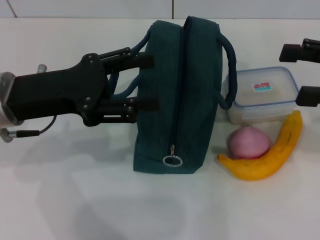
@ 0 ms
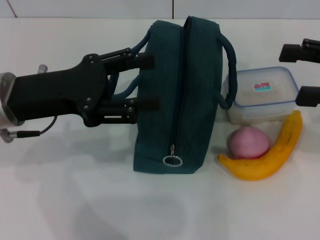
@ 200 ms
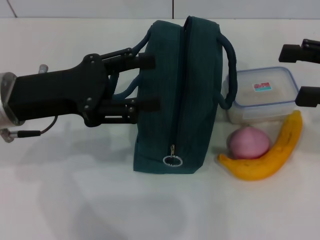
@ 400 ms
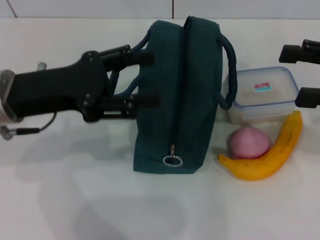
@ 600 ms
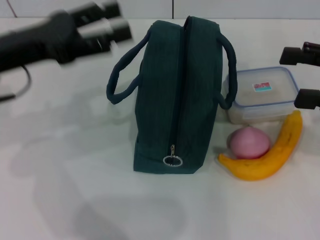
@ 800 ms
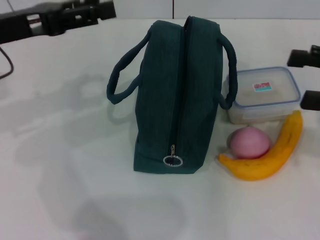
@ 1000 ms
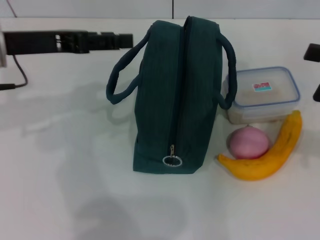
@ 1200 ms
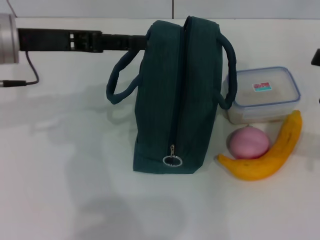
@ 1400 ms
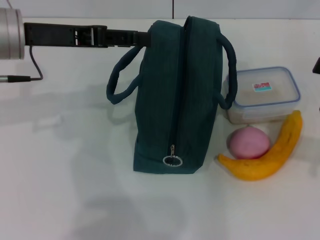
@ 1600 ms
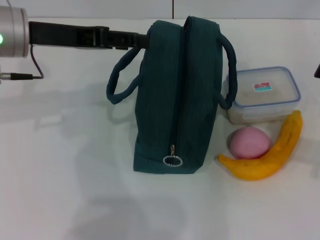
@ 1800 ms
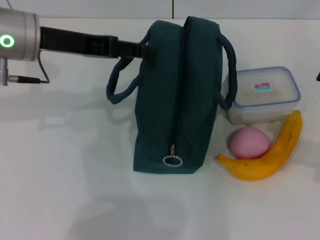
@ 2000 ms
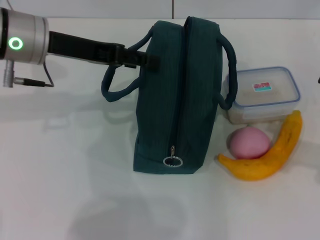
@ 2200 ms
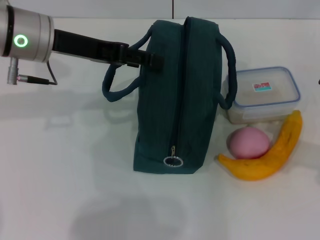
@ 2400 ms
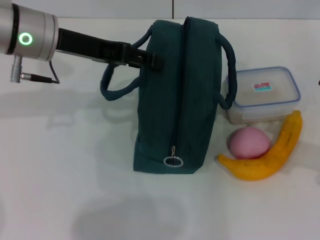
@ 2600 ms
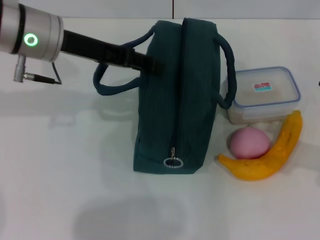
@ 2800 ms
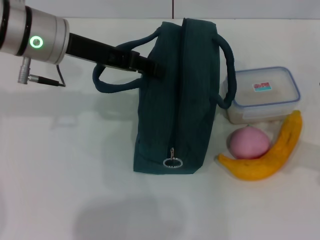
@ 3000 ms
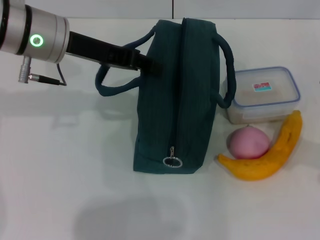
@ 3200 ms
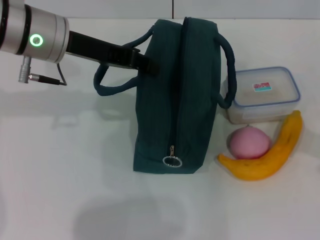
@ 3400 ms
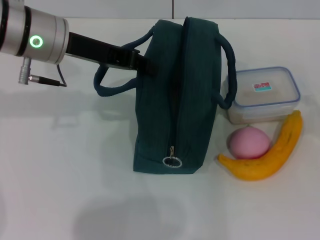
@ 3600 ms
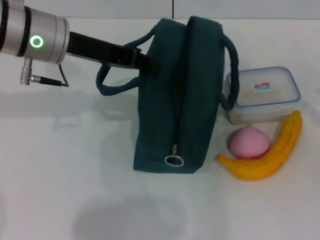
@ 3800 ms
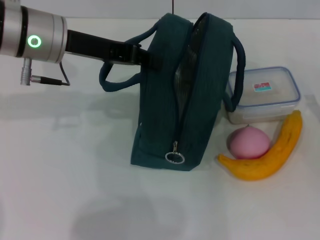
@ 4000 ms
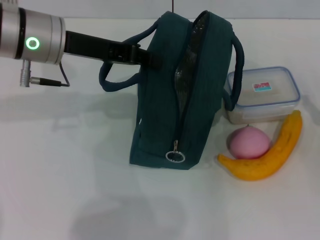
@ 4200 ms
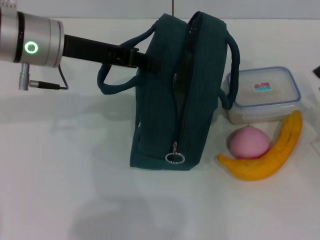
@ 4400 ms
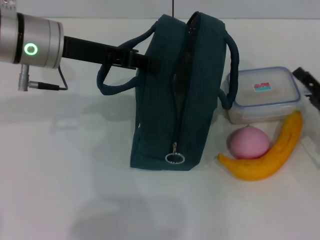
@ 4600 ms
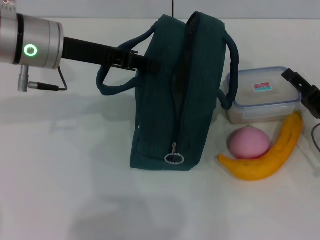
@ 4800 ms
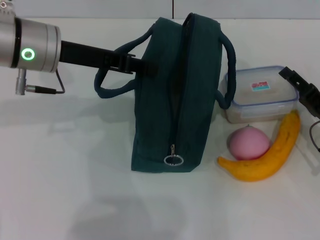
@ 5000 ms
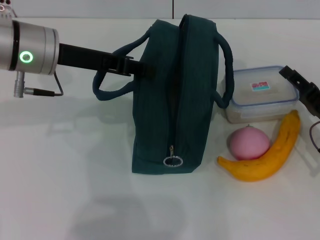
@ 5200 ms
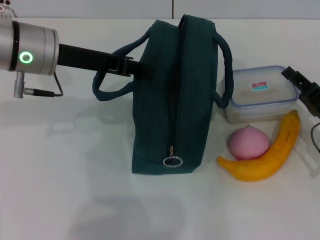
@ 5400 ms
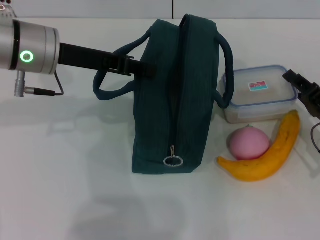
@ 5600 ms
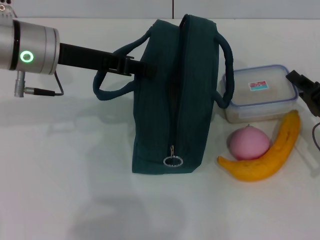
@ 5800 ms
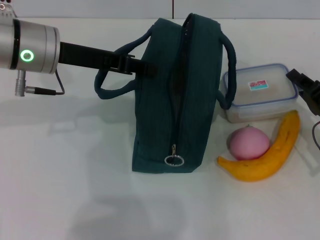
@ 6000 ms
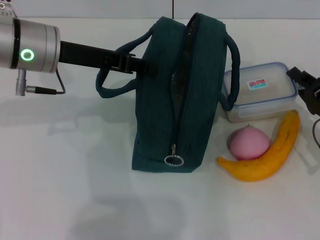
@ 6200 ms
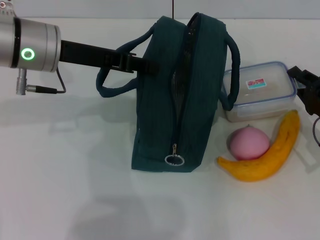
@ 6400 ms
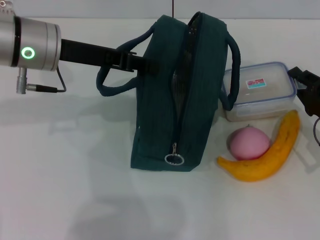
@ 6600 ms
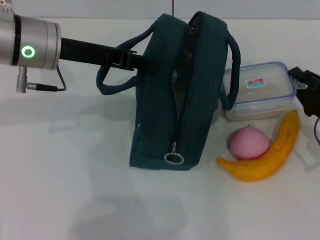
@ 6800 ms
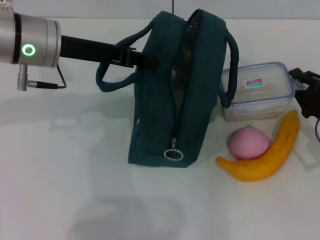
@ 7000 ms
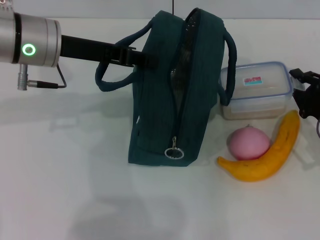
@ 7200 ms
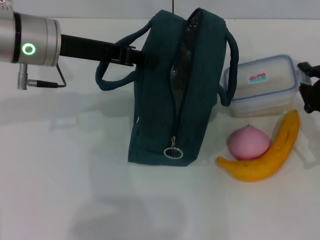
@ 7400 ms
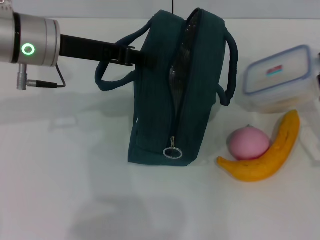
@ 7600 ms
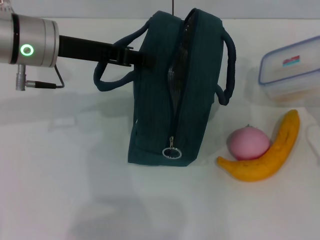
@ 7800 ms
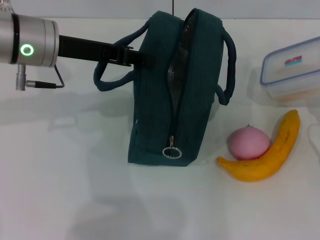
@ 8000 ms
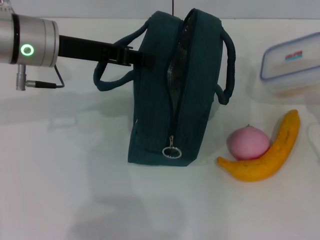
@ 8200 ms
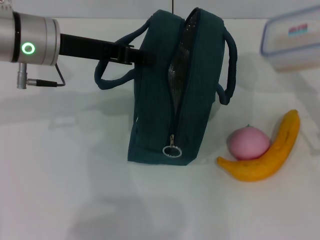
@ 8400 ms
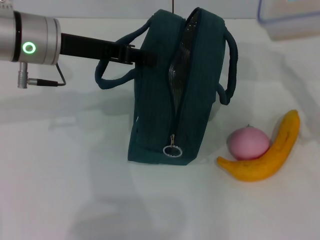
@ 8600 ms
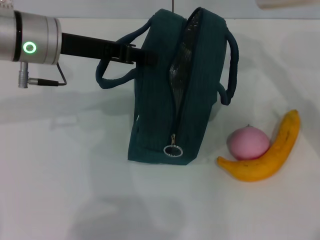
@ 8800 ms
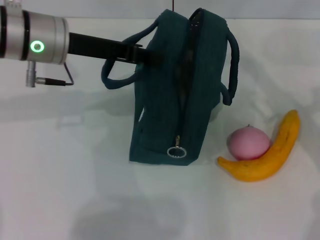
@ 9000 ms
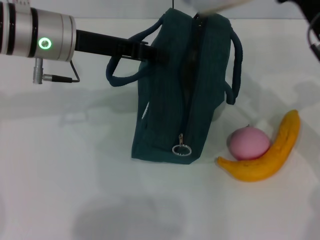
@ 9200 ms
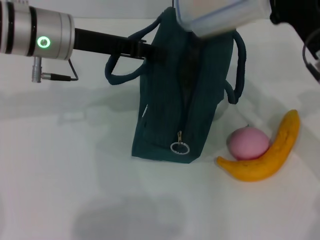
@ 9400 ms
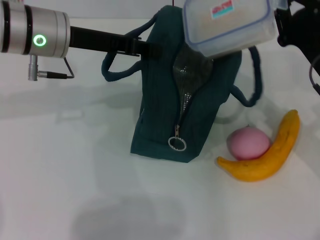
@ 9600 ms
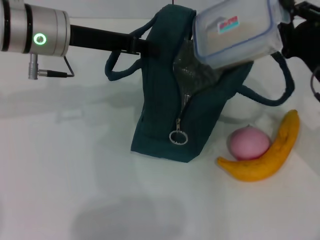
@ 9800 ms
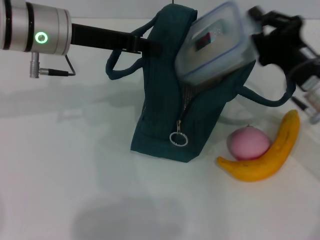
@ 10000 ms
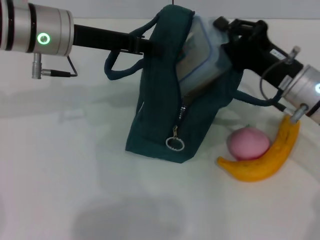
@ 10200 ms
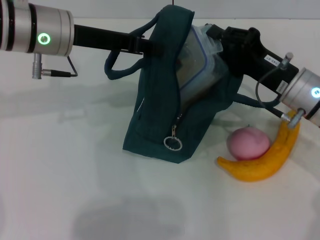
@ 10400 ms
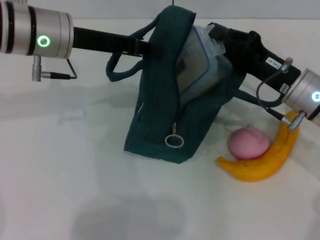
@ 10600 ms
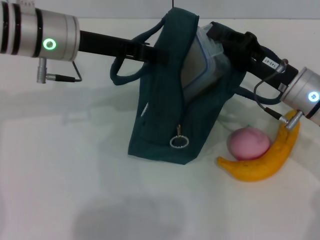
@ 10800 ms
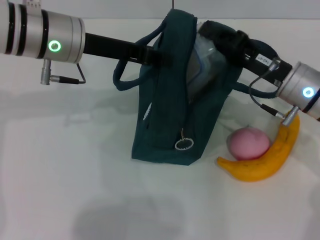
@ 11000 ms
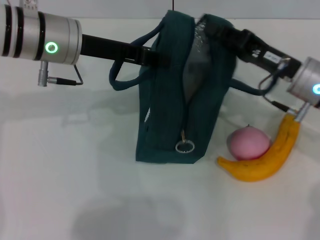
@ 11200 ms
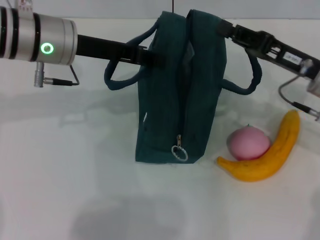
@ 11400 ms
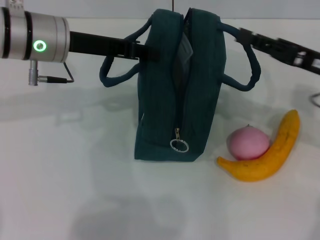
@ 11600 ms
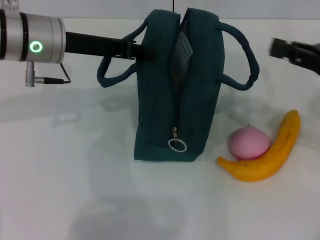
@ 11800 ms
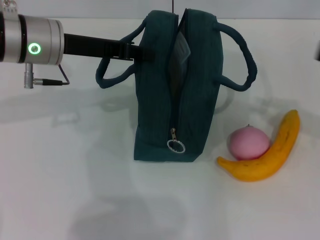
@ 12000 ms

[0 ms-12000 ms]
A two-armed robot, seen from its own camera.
Step, 0 ms to 4000 ms: Hold the lunch bag with your left hand.
Step, 4200 ms to 7200 ms: Pick up the lunch box with your right hand.
Step, 7600 ms to 11200 ms: Place the lunch box into the lunch bag with your right hand.
0 ms to 1600 ms: The left gripper shifts roughly 5 cm forward. The right gripper ends up roughly 5 cm from where it was.
1600 ms to 3000 ms: There are only small adjustments of the grippers.
3000 ms to 4400 ms: The right gripper goes roughly 10 cm downward; the left gripper closes its fingers.
4400 ms to 6000 ms: The right gripper closes its fingers.
7600 ms to 9000 ms: The right gripper goes approximately 15 cm upward, forward and to the left.
9000 ms to 10400 ms: The right gripper travels downward by roughly 5 cm.
10400 ms to 12000 ms: The right gripper goes roughly 20 cm to the right and upward.

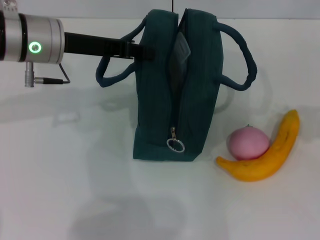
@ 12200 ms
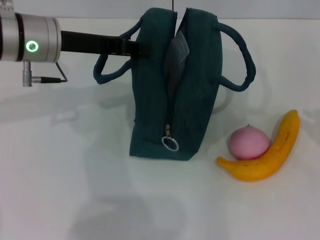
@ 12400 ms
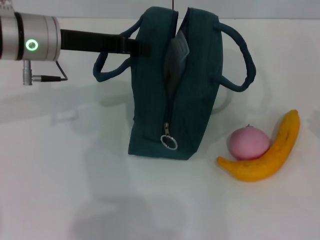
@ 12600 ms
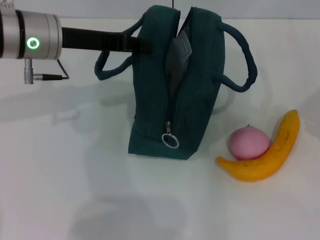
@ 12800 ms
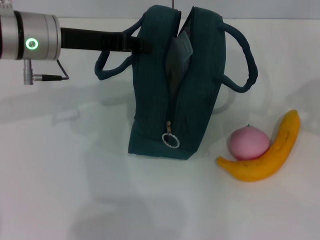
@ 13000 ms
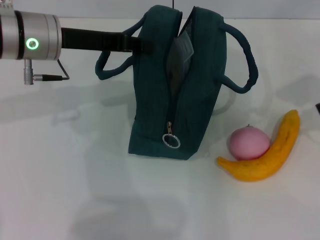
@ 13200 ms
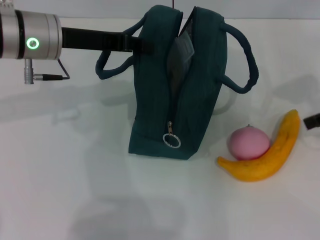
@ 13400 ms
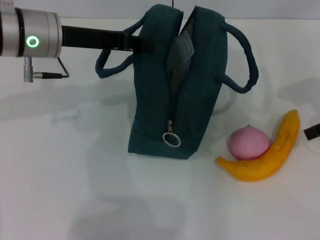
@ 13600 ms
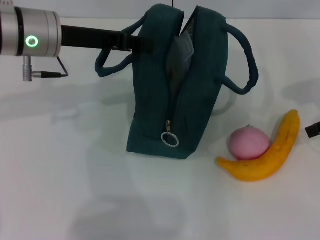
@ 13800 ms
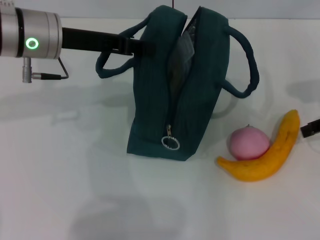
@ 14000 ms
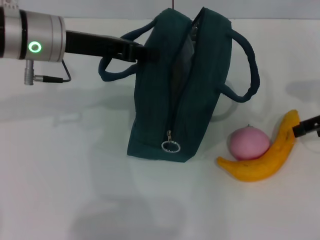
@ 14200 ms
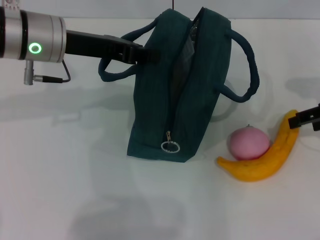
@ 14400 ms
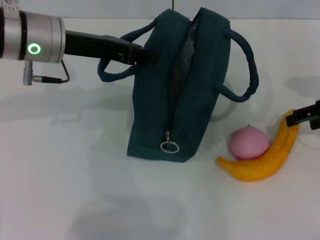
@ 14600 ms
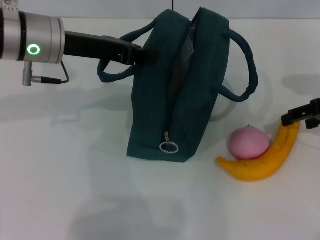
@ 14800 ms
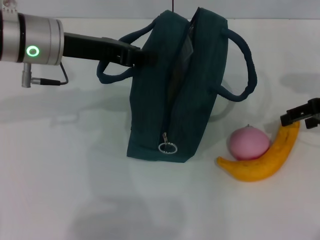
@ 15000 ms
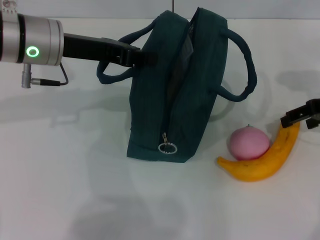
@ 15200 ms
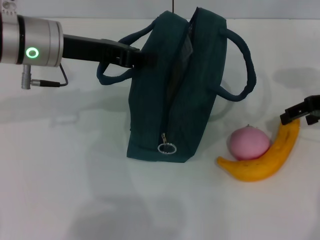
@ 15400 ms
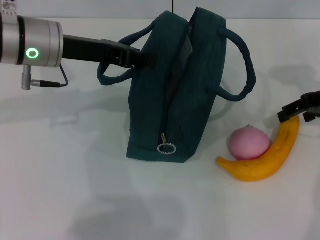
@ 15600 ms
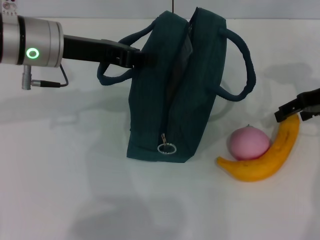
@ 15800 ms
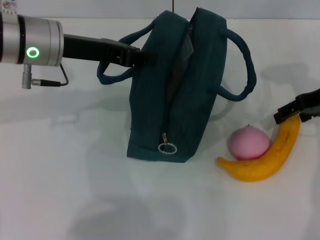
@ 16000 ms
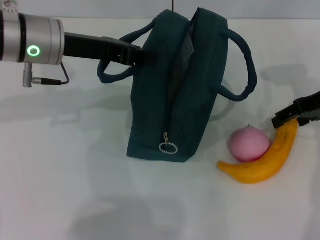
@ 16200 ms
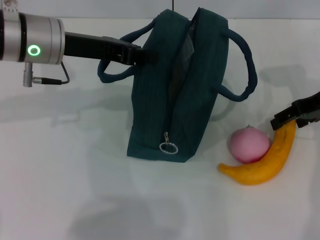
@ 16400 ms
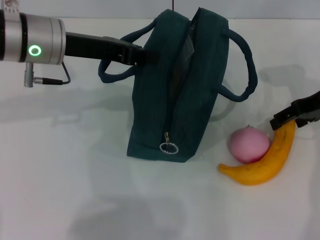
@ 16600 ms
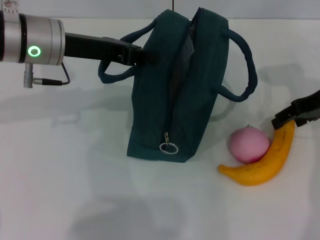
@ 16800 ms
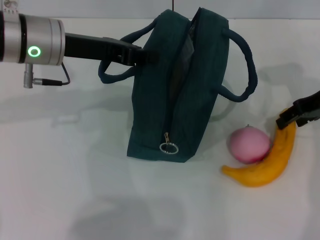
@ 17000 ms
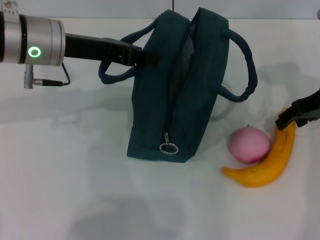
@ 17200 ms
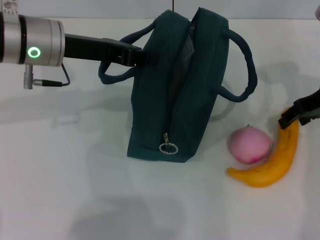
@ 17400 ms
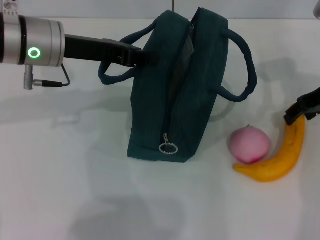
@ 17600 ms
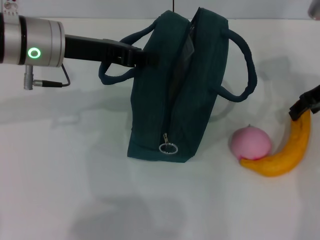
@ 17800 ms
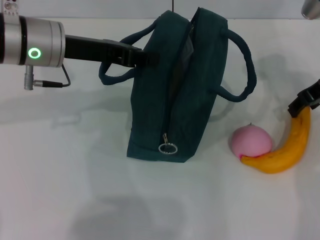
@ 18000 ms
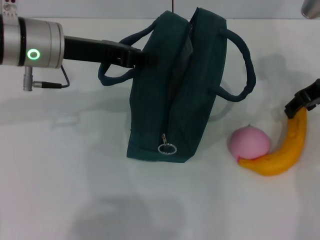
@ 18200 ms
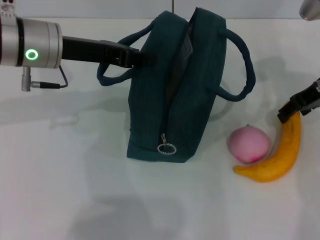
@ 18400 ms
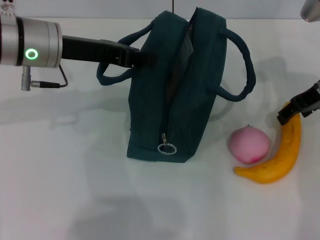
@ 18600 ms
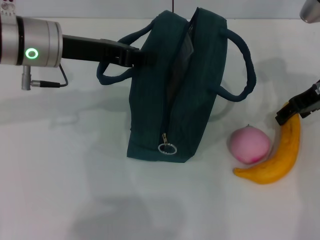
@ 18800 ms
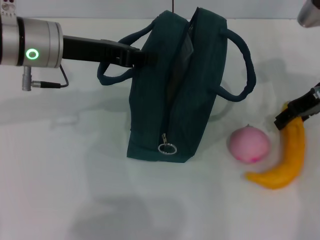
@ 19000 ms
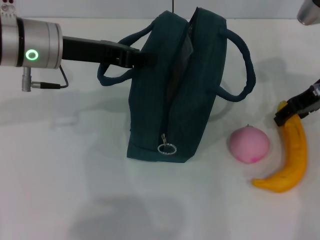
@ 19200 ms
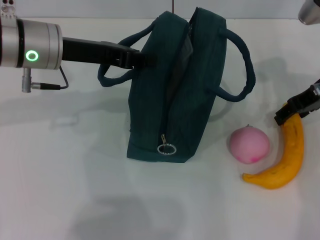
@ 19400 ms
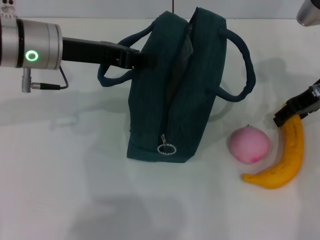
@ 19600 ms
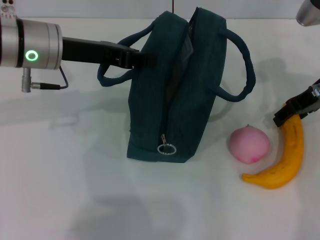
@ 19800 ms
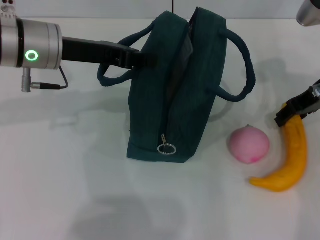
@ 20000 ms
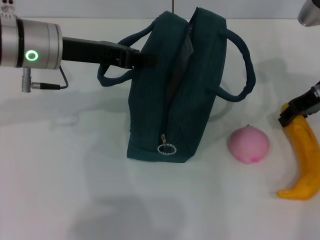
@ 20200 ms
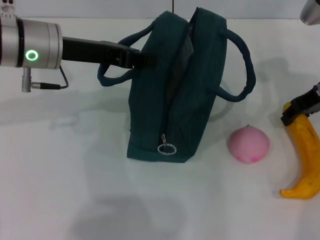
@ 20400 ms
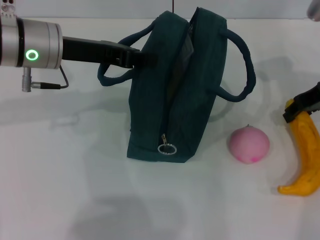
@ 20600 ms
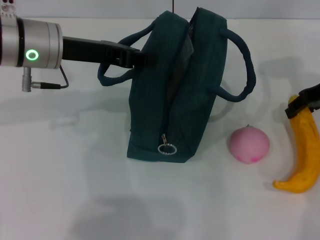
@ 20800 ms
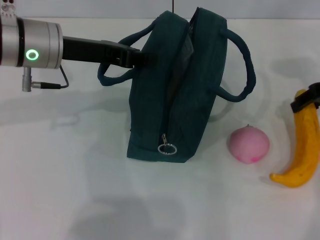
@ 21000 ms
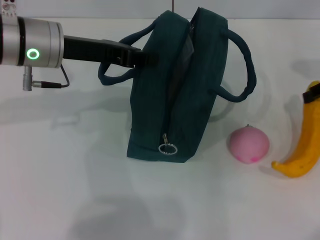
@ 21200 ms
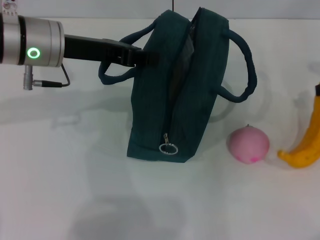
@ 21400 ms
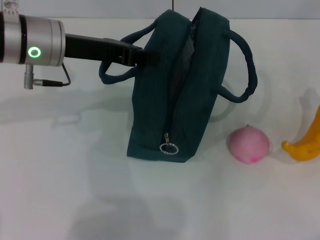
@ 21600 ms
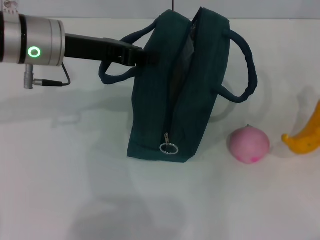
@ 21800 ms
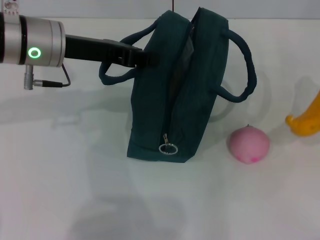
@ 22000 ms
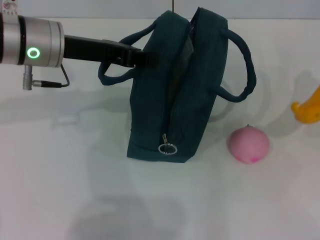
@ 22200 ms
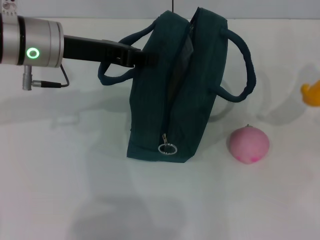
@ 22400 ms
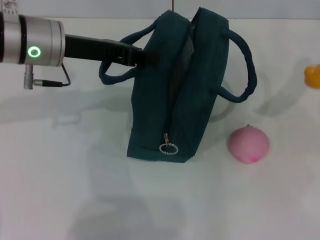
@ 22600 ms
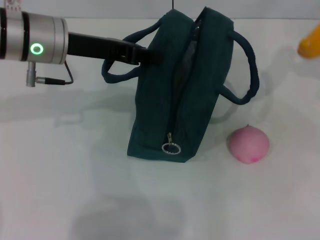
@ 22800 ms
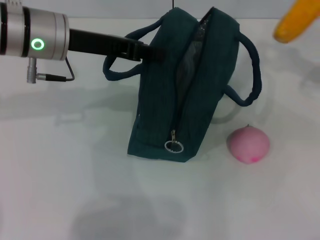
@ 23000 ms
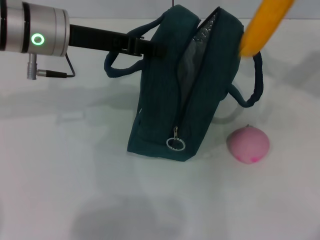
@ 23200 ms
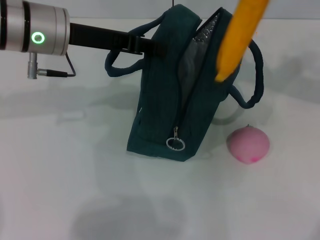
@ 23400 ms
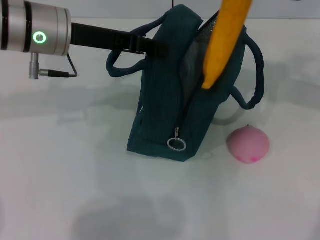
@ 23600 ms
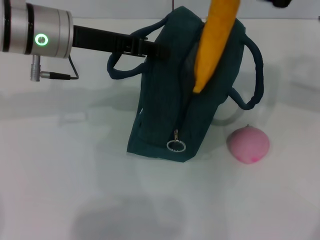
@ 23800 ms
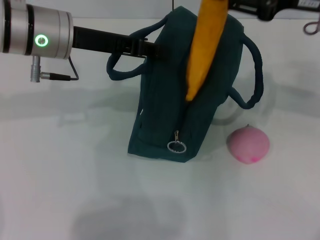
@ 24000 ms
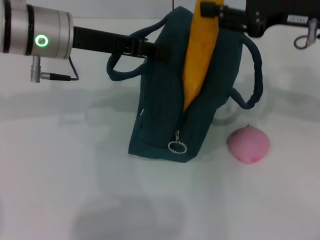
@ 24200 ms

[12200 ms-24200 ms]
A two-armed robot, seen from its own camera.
Step, 12200 ms to 19600 ms: Take the banana with your right hand.
12200 ms to 13800 ms: The right gripper shifts about 10 cm to the left and forward, and opens up.
13800 ms to 15200 ms: The grippers stay close to where they were, moving slightly.
15200 ms to 16600 ms: The grippers move only a little.
16600 ms to 19800 ms: The grippers stay close to where they were, moving slightly.
19800 ms to 21200 ms: The right gripper heads to the right, covering approximately 10 cm.
21200 ms to 22600 ms: The right gripper is displaced to the right by about 10 cm.
22600 ms to 24200 ms: The right gripper shifts roughly 20 cm to the left.
